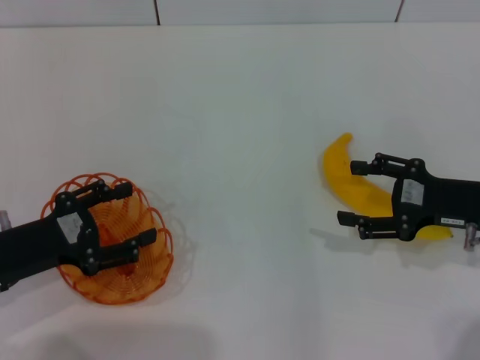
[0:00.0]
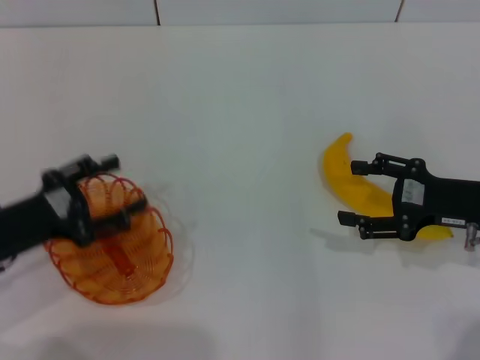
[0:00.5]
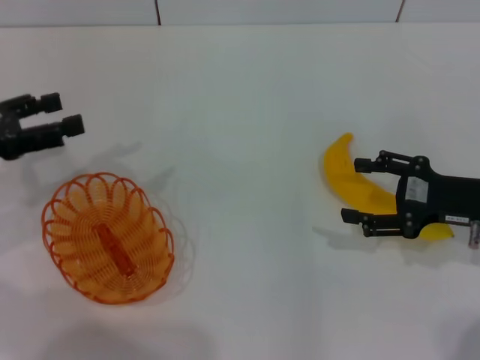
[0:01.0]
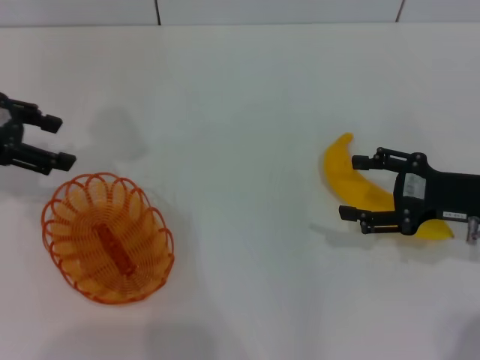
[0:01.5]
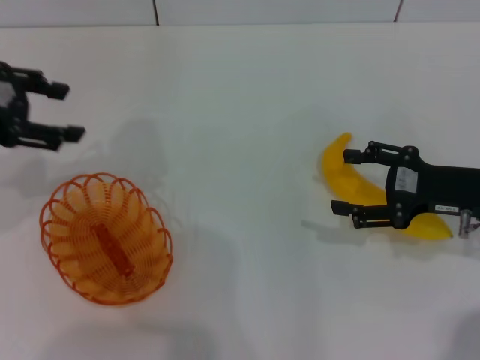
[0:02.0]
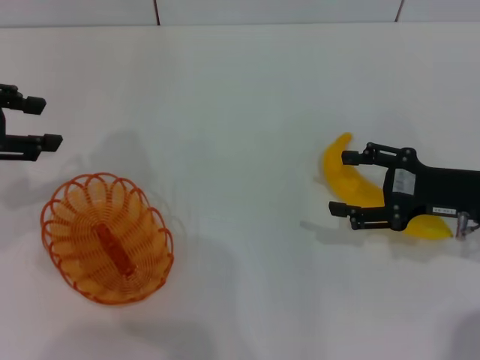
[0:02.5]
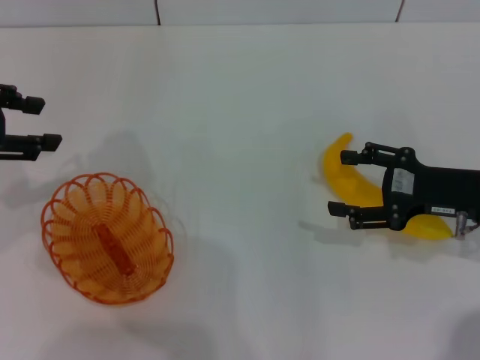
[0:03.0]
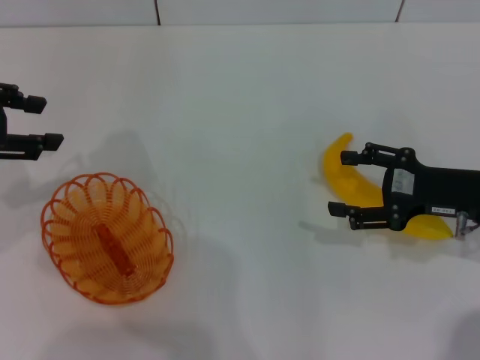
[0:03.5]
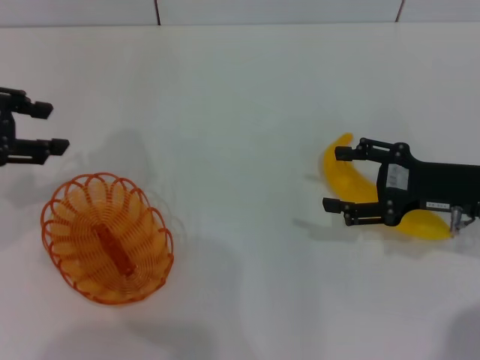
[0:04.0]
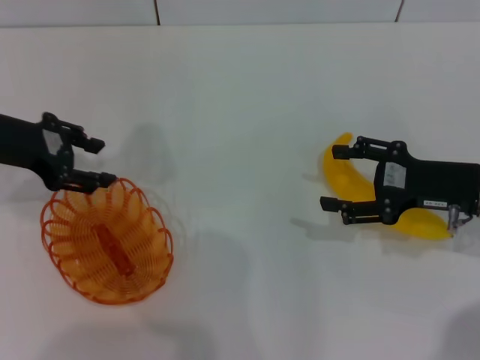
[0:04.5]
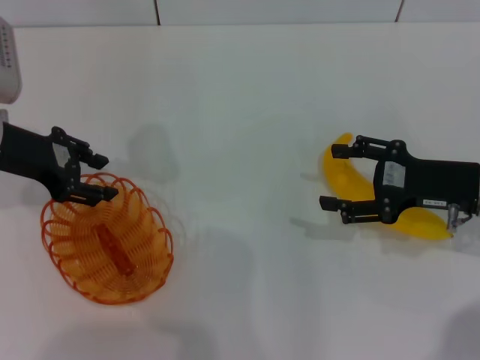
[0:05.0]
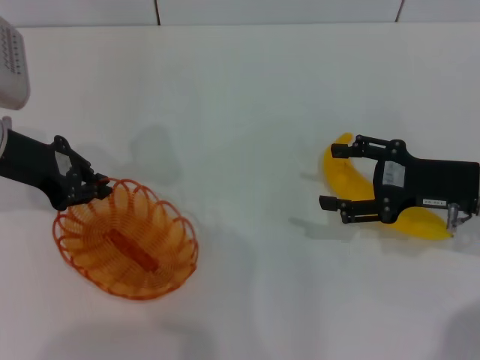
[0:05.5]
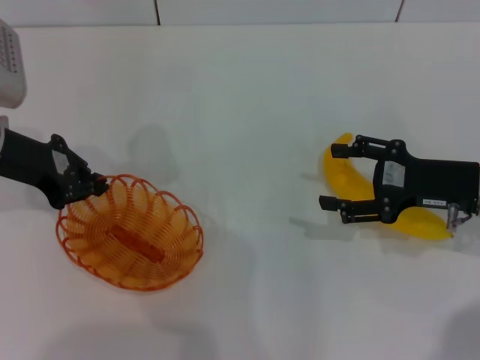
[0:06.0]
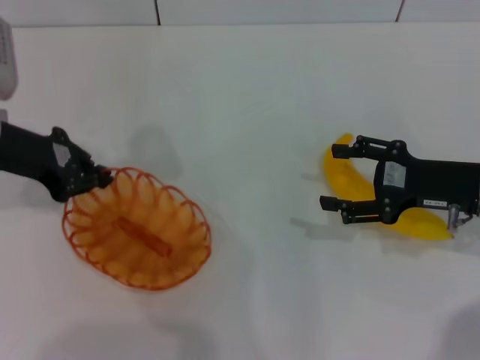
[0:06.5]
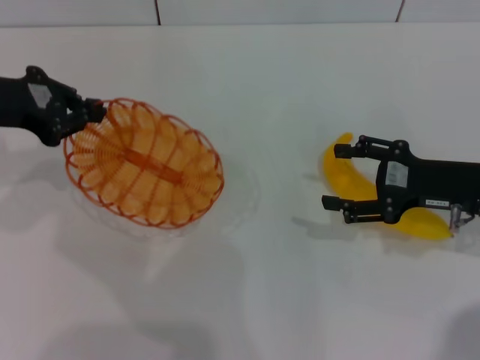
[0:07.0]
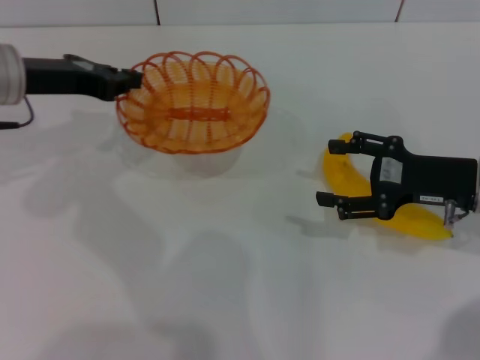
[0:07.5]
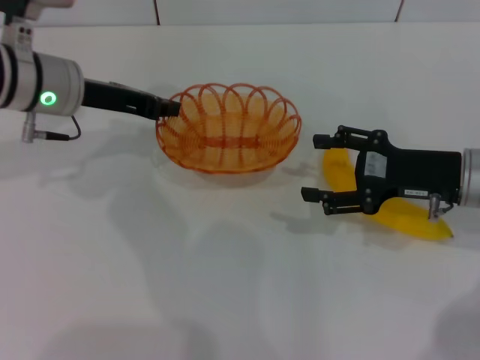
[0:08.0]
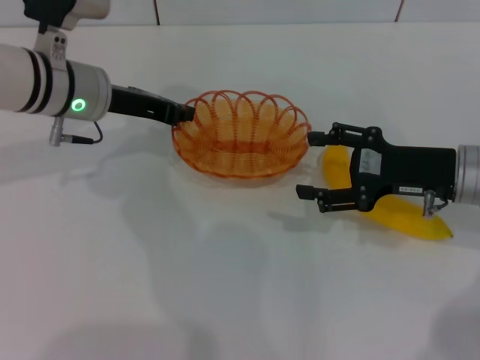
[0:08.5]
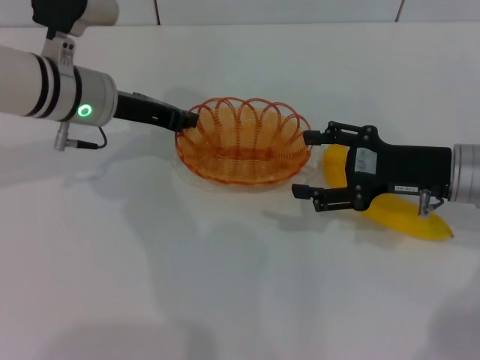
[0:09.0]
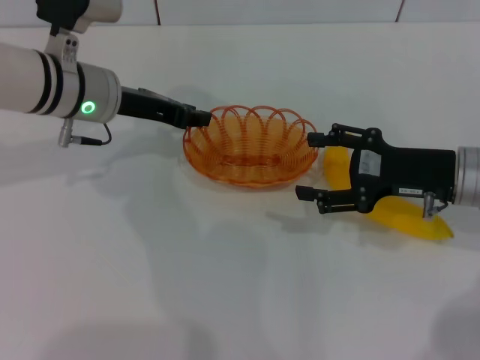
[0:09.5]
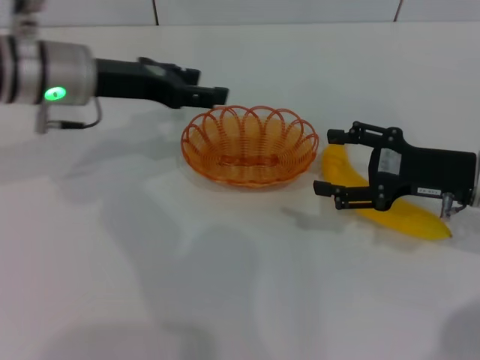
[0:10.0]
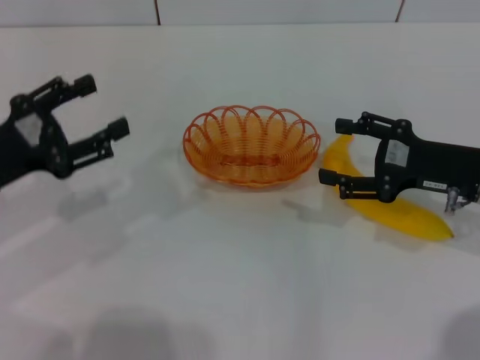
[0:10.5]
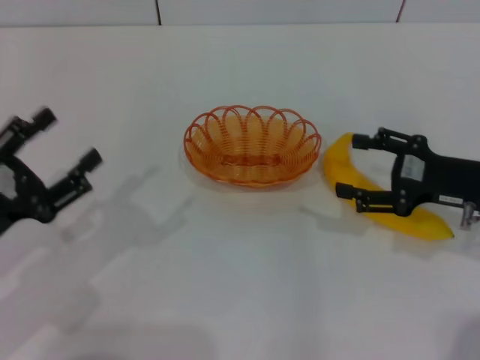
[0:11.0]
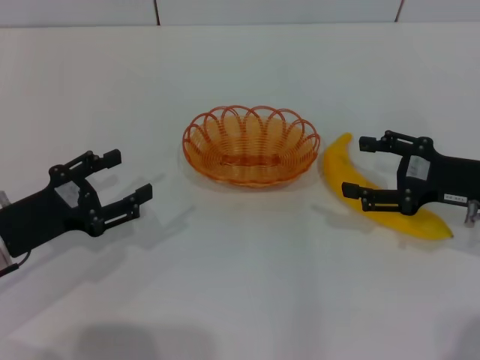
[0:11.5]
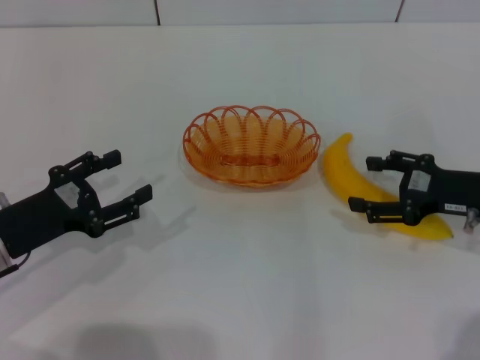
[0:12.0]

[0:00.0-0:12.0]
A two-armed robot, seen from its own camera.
Step, 0:00.0 to 0:06.5: Pick up the basket with the left gripper.
Step, 0:07.0 to 0:09.5: Place the basket in the center of view with the left gripper.
0:00.0 to 0:02.0: The left gripper heads upward and forward, covering about 20 cm.
0:02.0 to 0:04.0: The grippers move only a little.
0:04.0 to 0:06.0: The left gripper goes roughly 10 cm downward and to the right, and closes its fingers.
0:06.0 to 0:08.0: The left gripper is displaced to the right by about 5 cm.
0:08.0 to 0:10.0: The left gripper opens its fingers.
0:10.0 to 0:12.0: The left gripper is displaced backward, downward and to the left by some 20 cm.

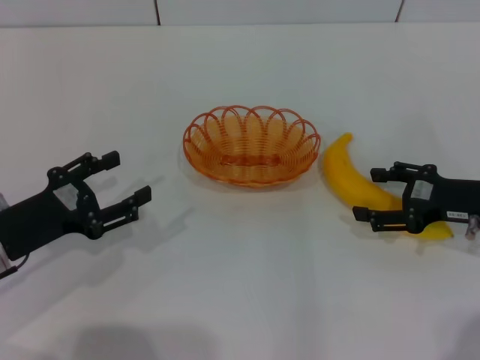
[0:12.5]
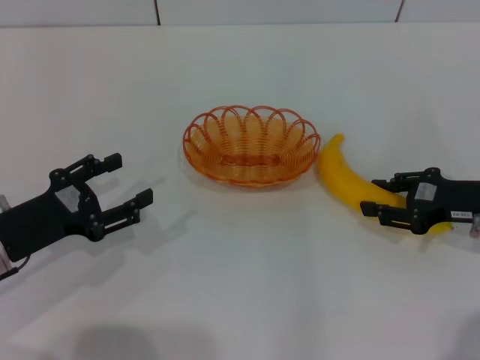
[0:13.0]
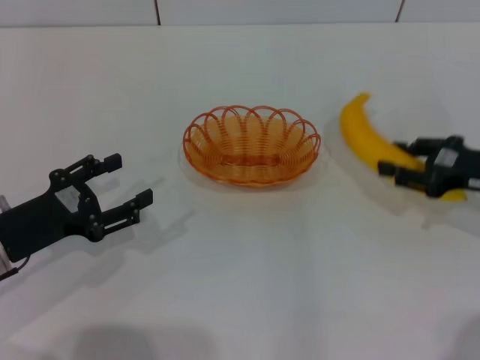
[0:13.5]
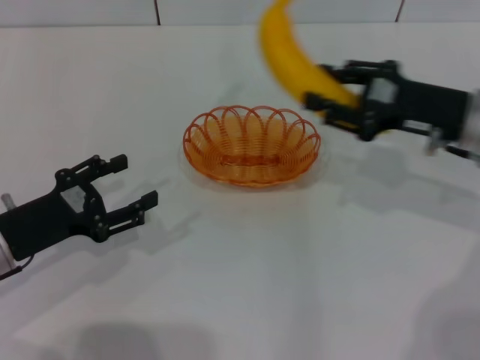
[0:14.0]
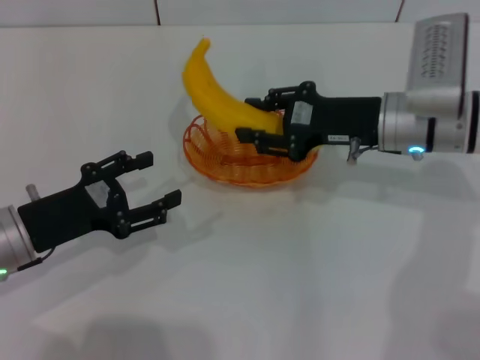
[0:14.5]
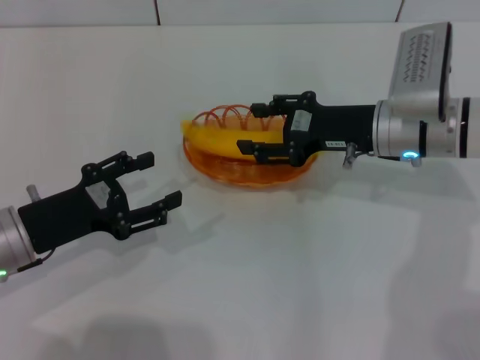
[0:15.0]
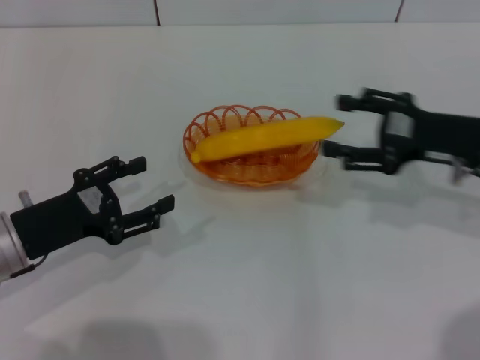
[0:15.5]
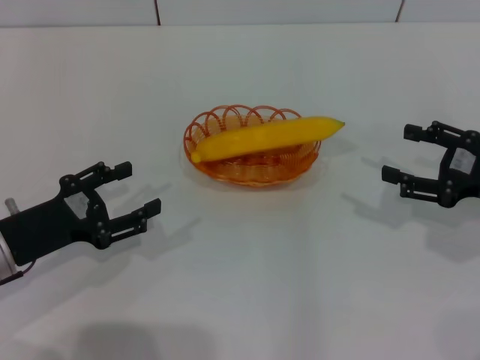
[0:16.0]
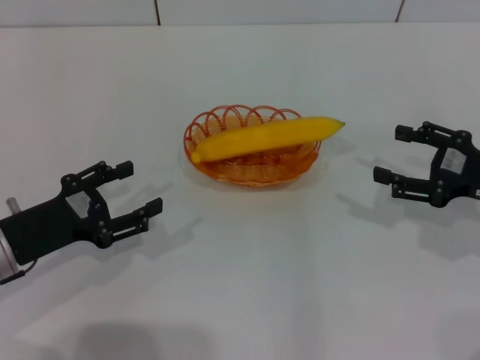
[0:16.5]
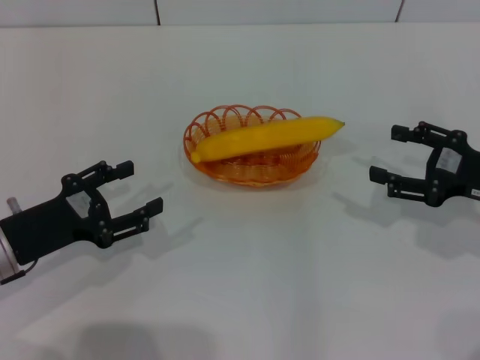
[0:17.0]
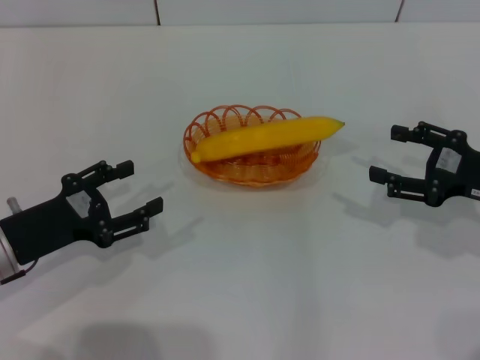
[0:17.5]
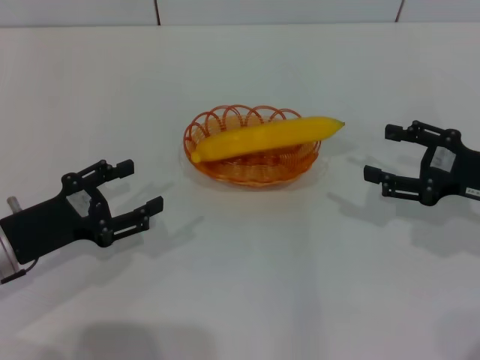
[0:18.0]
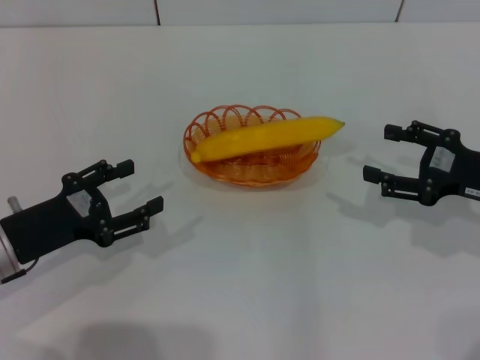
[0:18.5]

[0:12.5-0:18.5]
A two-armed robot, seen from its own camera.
Step, 0:14.0 to 0:16.0: Place the banana into the basket with the right gripper.
0:12.5 to 0:14.5: The right gripper is displaced to the left and forward by some 15 cm, and closes.
0:14.5 to 0:16.5: The right gripper shifts about 15 cm to the right and backward, and opens its fingers.
0:16.5 to 0:18.5: Both grippers stay about where they are.
